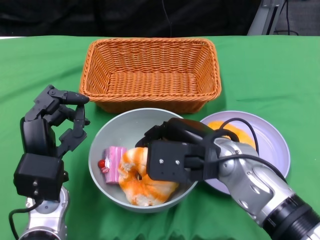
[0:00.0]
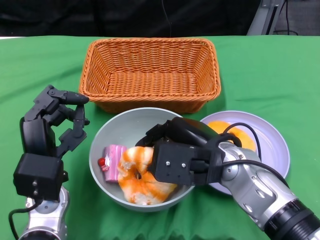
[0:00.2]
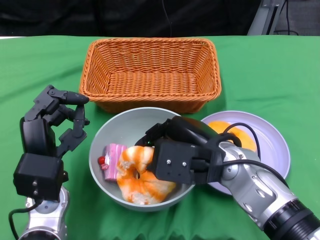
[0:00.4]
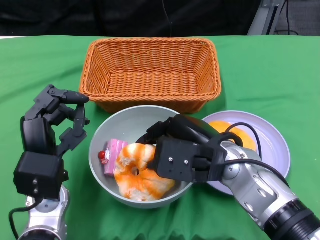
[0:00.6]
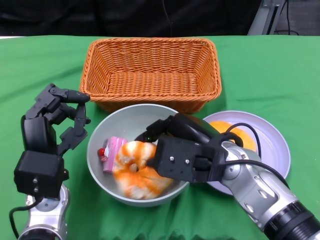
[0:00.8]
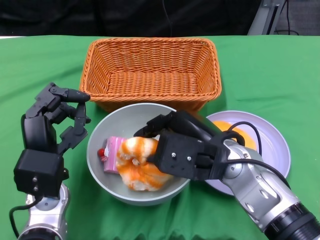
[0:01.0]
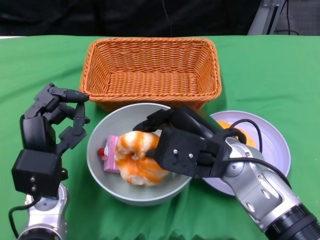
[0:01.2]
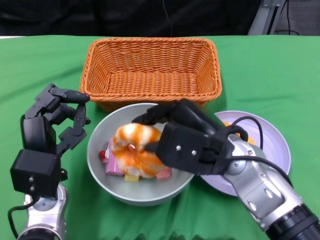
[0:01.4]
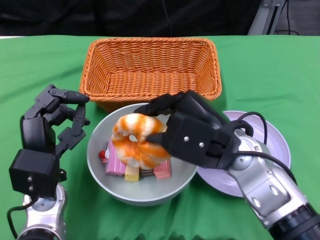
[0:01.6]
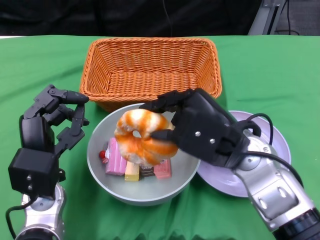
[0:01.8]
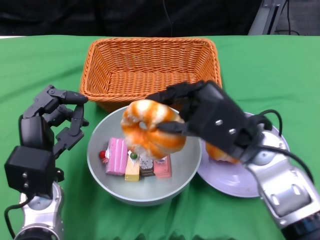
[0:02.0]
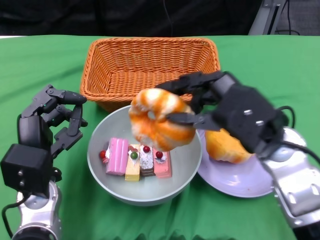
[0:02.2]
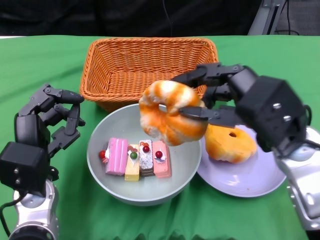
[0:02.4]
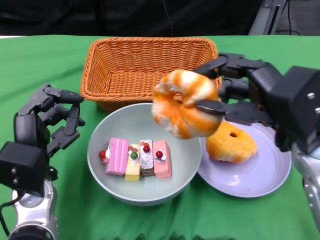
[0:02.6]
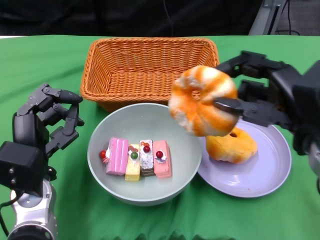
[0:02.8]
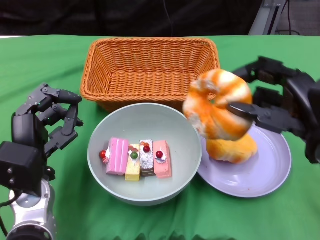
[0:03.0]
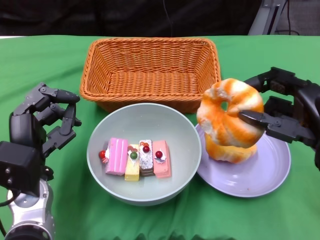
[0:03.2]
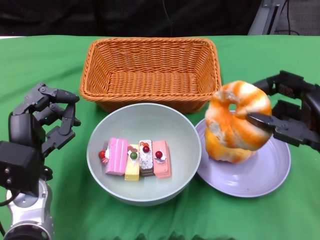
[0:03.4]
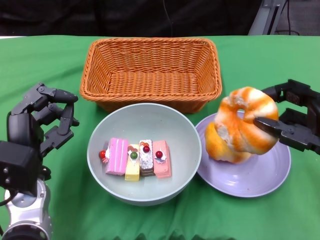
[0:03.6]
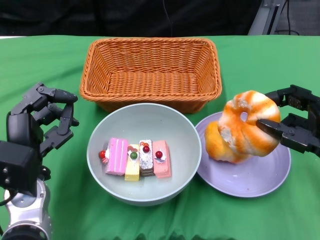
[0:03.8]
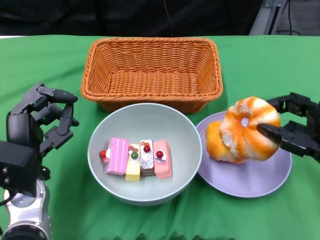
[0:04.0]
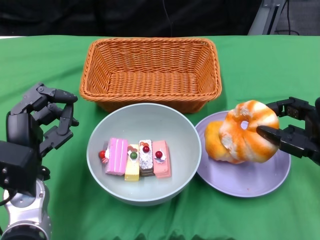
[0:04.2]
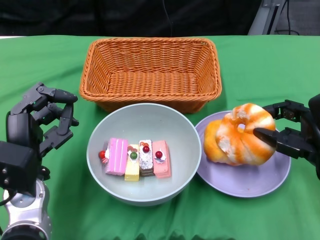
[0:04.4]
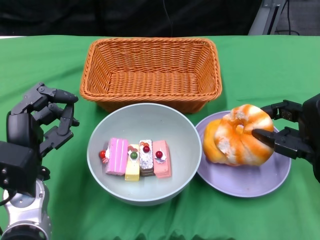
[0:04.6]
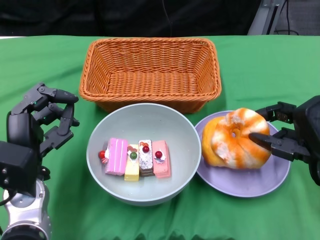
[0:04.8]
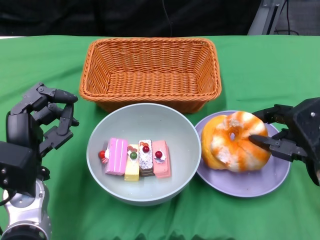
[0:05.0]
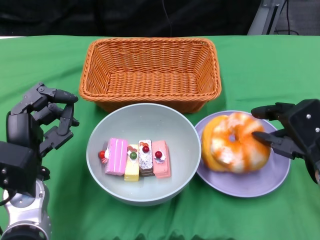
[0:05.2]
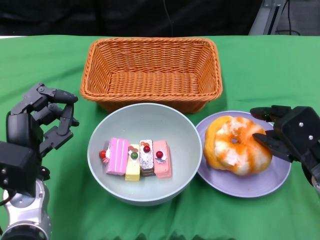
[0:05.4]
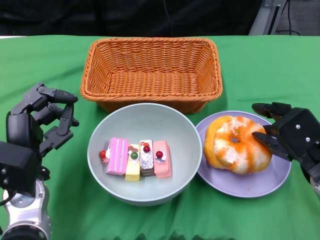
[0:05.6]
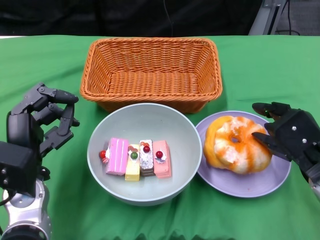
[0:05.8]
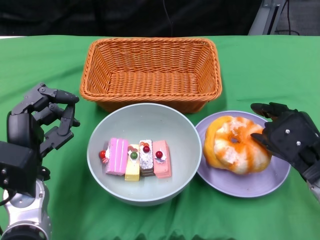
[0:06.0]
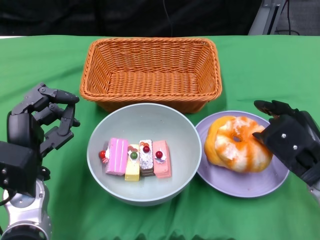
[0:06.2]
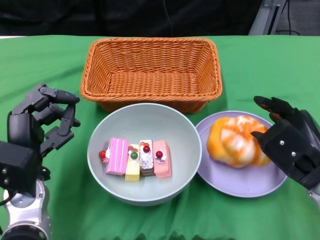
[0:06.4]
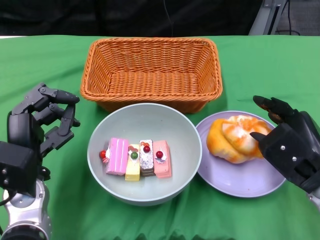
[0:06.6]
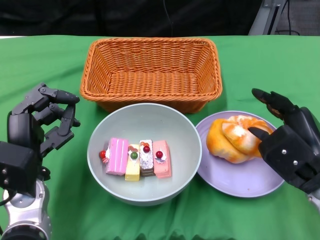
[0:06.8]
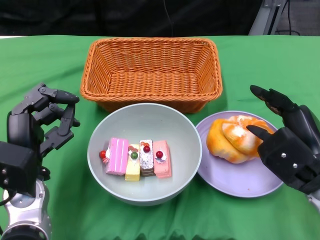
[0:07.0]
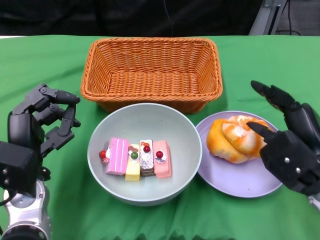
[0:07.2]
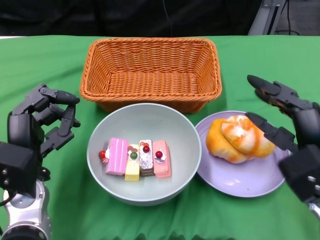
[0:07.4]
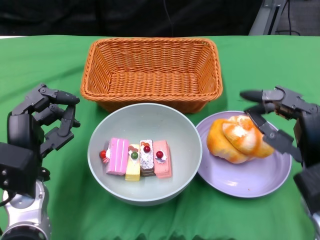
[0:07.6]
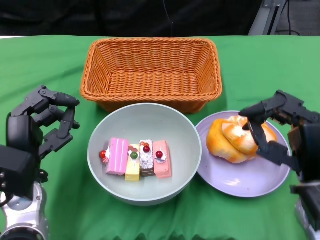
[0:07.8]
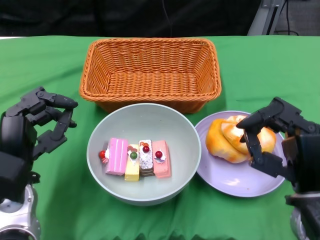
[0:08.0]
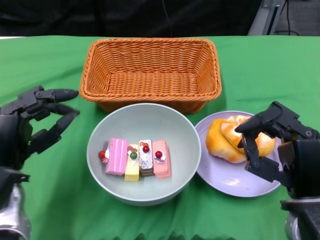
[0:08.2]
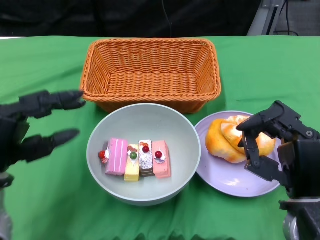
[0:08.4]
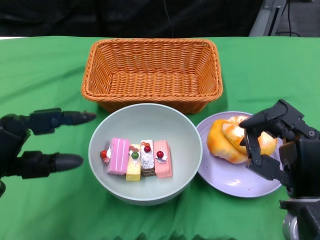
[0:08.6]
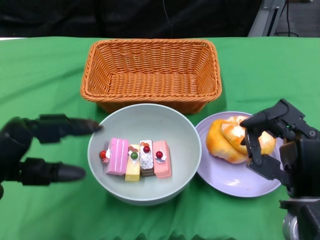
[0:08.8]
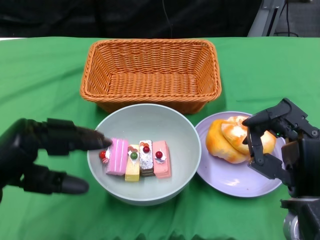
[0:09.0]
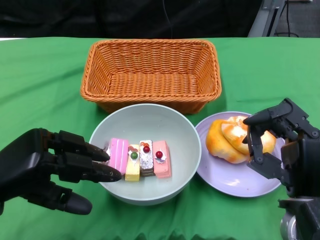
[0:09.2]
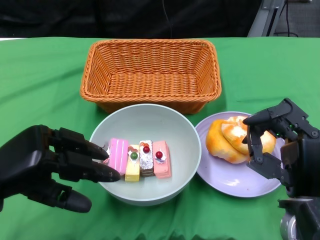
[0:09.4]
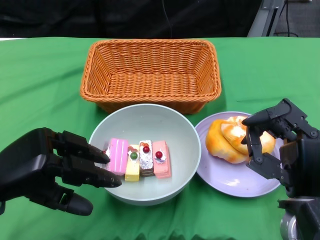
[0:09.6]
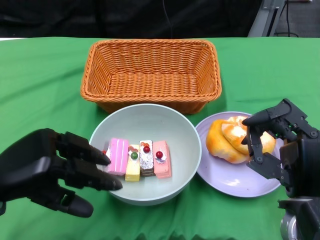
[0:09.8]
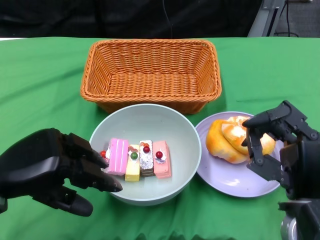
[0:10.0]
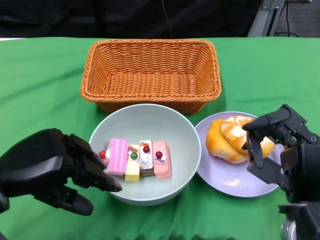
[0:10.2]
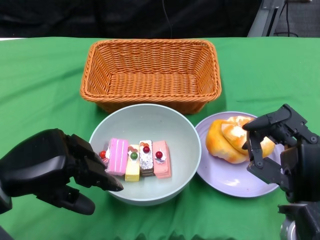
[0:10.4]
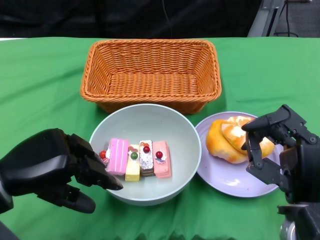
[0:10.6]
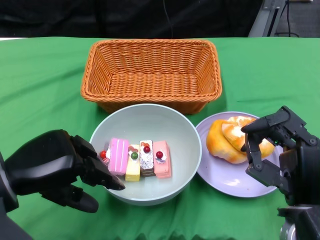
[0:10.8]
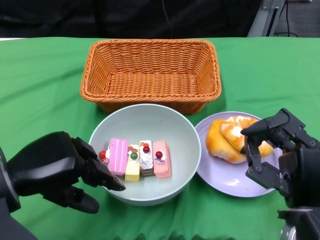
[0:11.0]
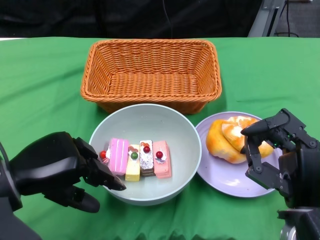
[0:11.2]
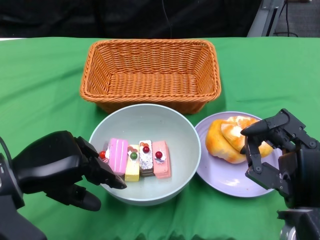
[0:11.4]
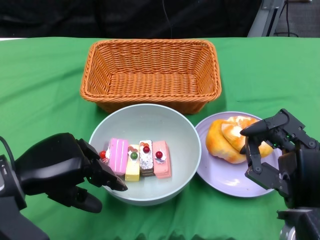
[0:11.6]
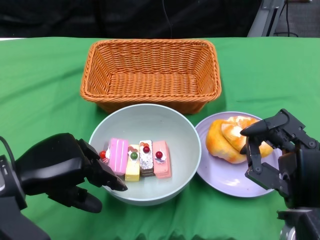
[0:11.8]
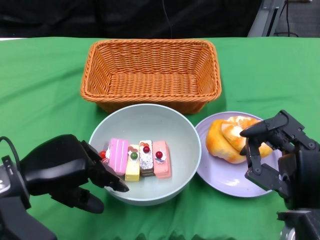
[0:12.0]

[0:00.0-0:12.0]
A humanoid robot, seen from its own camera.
Step, 0:00.0 to 0:06.6: Pick up the bread with the right gripper and place it on the plate.
0:01.6 to 0:03.0: The right hand shifts roughly 10 cm to the right.
0:03.0 to 0:04.4: The right hand goes some 5 cm downward.
0:07.6 to 0:09.0: The left hand moves to the left and upward, some 10 cm.
0:10.4 to 0:12.0: The hands move only a little.

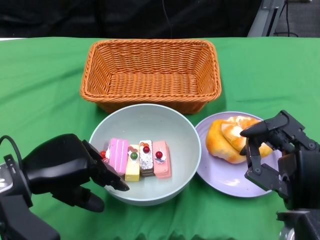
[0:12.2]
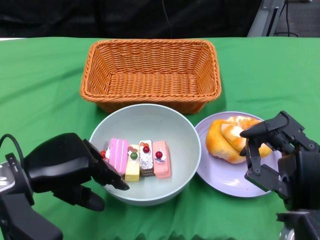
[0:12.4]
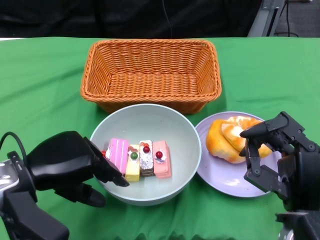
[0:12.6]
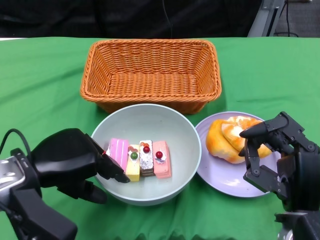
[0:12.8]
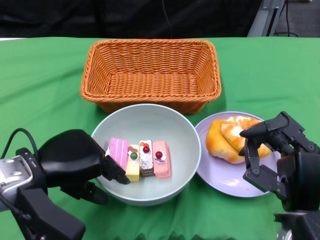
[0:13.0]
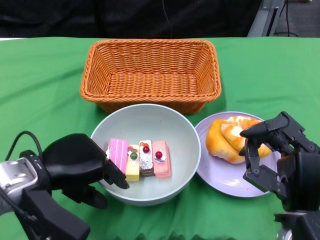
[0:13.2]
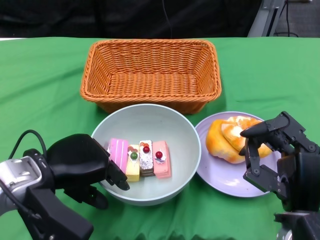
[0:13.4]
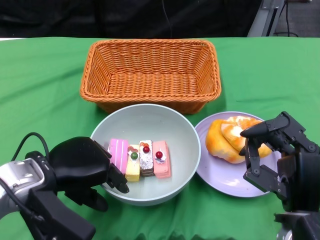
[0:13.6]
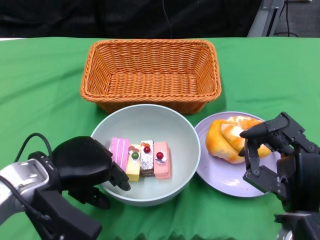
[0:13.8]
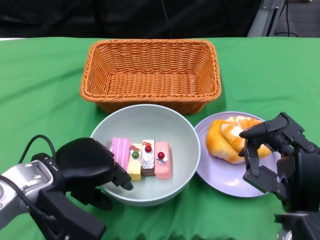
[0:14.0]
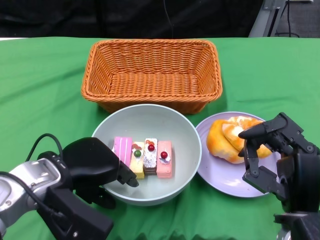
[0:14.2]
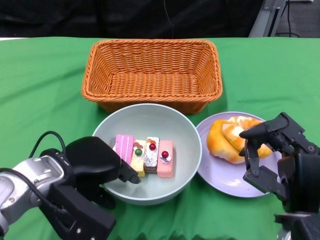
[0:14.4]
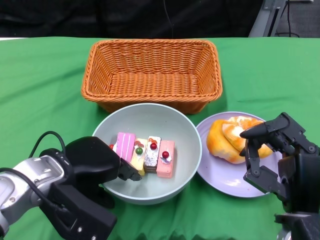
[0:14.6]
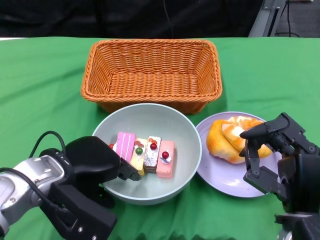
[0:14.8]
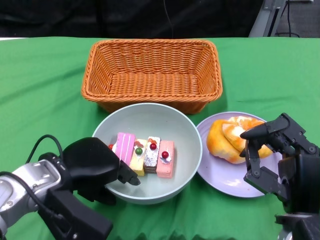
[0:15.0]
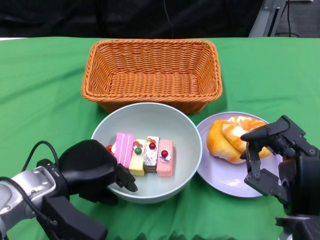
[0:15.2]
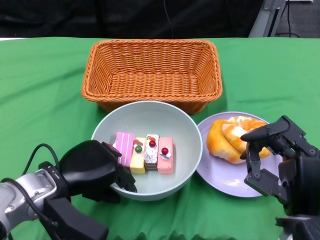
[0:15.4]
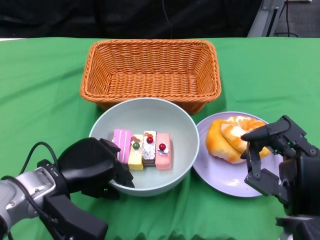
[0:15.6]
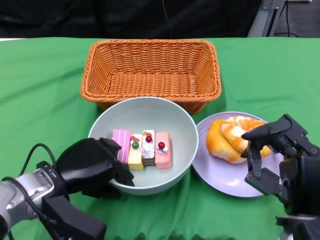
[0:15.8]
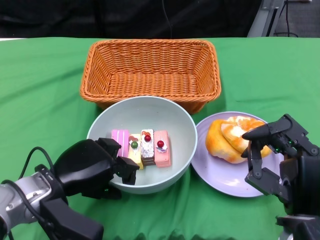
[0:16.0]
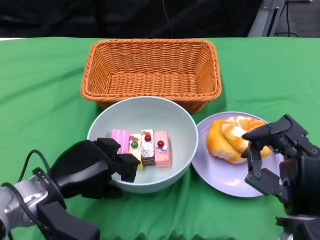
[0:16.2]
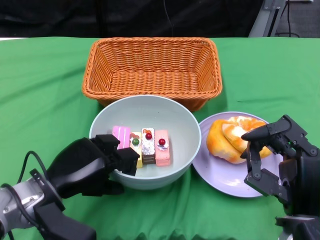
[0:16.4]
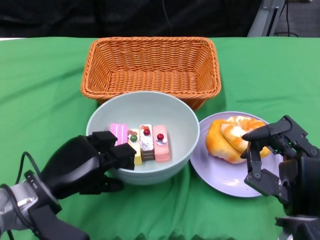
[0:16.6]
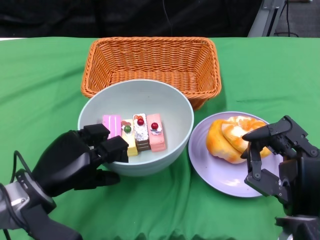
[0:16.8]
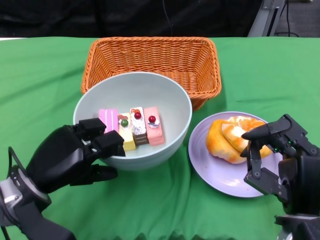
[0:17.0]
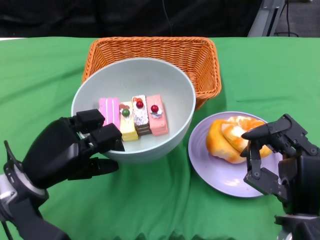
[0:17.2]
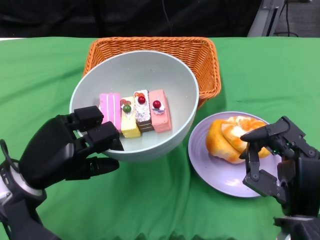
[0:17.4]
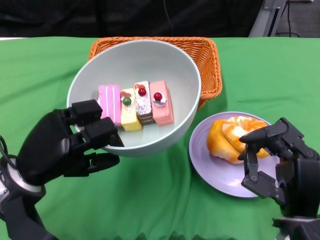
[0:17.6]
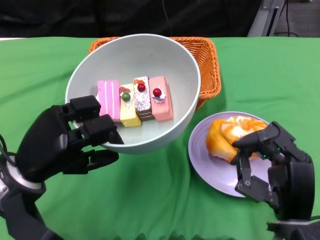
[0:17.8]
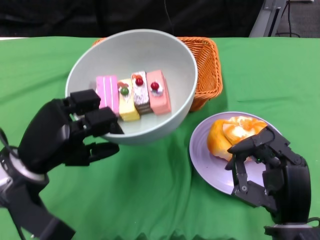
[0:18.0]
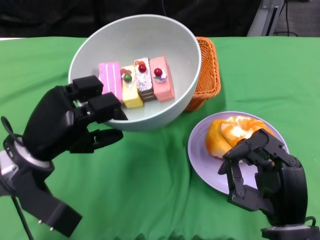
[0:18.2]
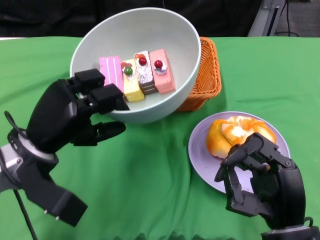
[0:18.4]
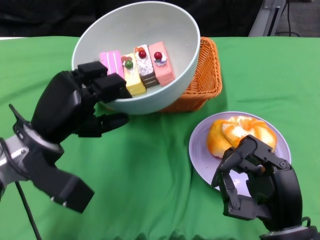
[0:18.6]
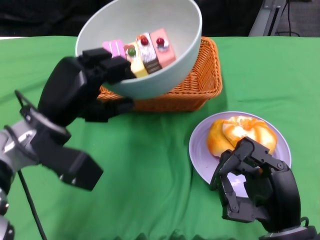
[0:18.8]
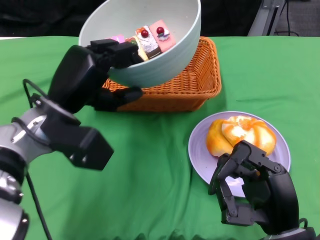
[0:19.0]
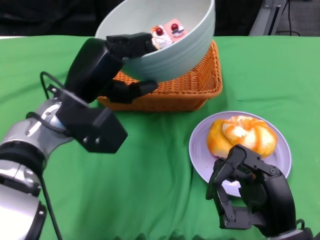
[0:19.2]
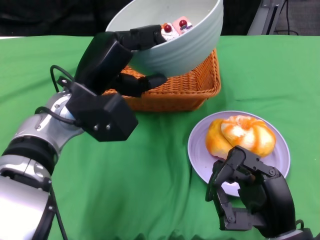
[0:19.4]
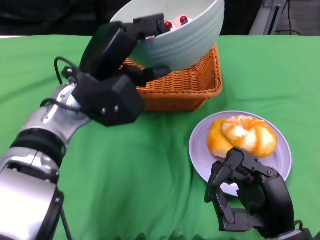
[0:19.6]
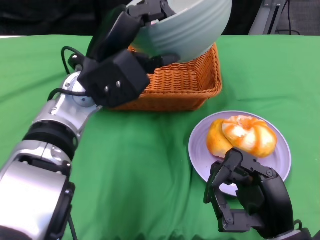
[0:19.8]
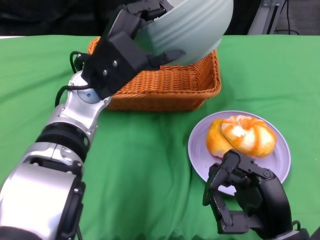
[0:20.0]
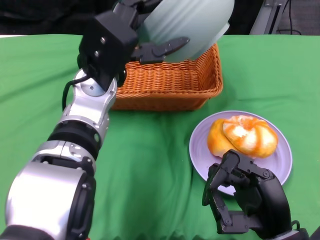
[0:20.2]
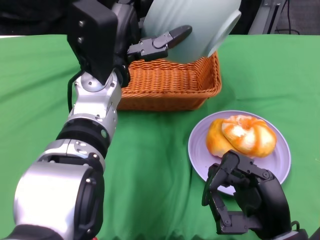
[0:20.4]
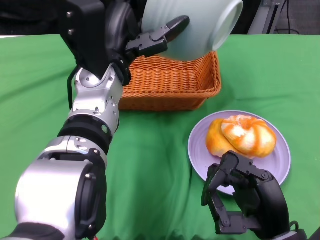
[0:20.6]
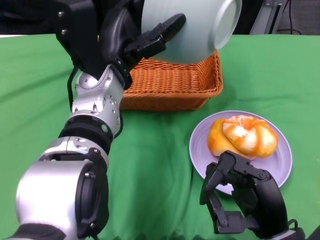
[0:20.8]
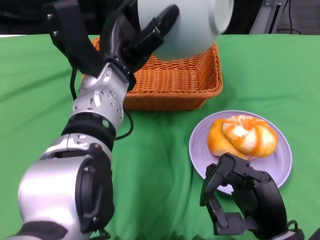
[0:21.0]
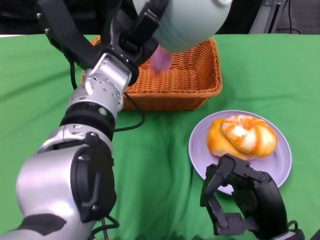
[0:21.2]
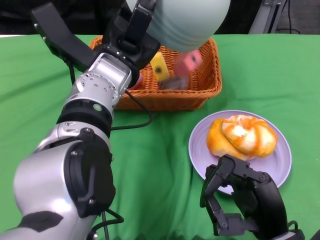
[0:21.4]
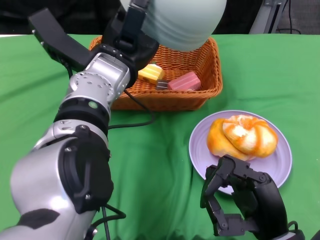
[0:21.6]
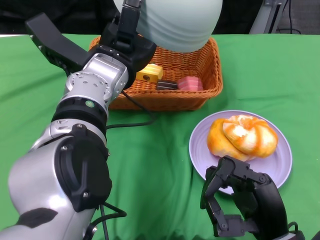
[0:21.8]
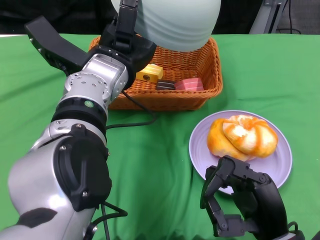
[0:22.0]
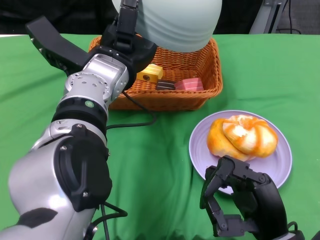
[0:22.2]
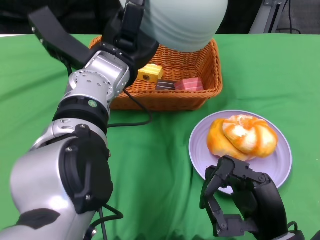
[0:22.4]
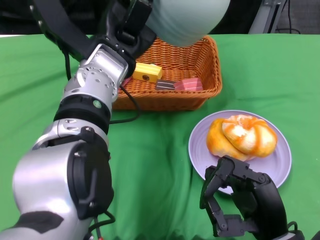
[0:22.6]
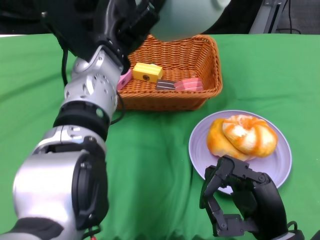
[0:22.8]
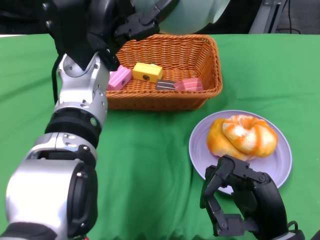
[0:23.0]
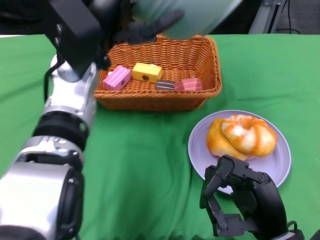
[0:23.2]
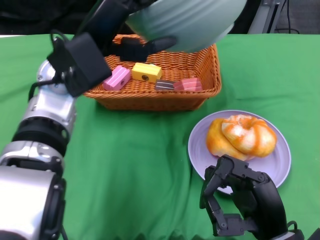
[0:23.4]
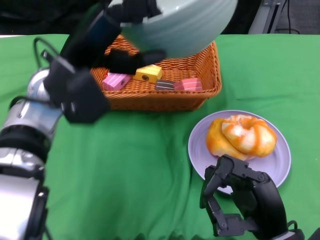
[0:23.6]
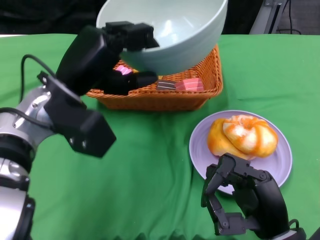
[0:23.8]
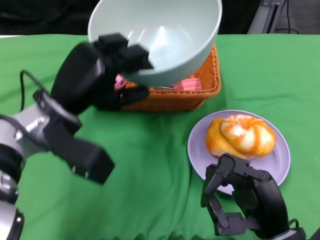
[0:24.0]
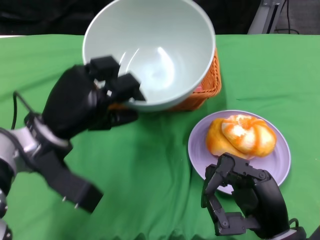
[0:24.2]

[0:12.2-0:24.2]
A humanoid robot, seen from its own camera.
Step, 0:12.2 to 0:16.0: Grasp the bowl with the left gripper.
Step, 0:16.2 to 0:22.4: Pour the cake into the basket with the left gripper.
0:12.2 to 0:13.8: The hands make only small movements.
0:13.8 to 0:15.2: The hands make only small movements.
0:16.6 to 0:18.2: The left hand shifts approximately 5 cm upward.
0:18.2 to 0:19.8: The left hand moves to the right, upward and forward, approximately 15 cm.
0:22.6 to 0:24.2: The left hand heads to the left, downward and backward, covering some 15 cm.
